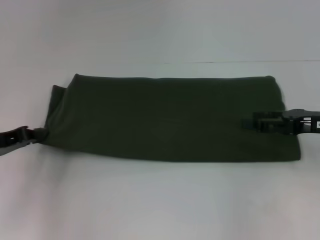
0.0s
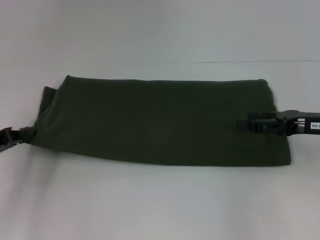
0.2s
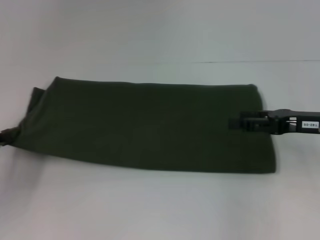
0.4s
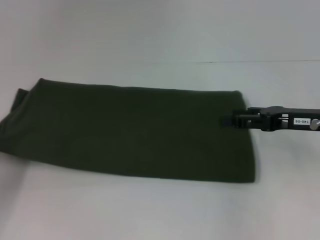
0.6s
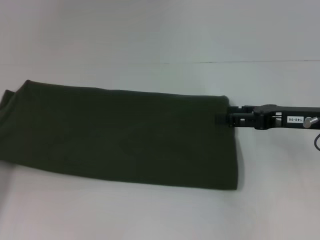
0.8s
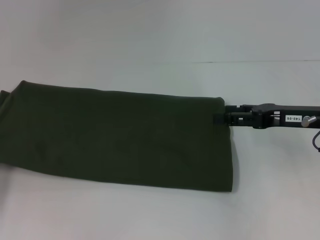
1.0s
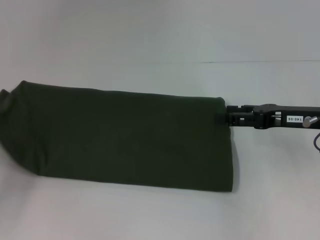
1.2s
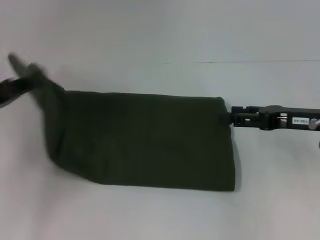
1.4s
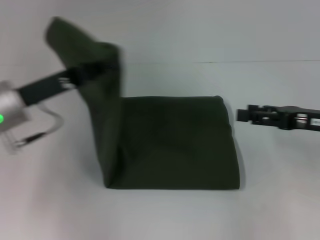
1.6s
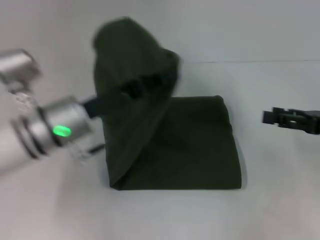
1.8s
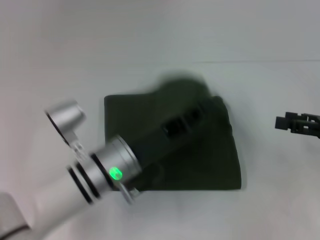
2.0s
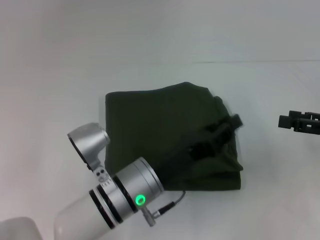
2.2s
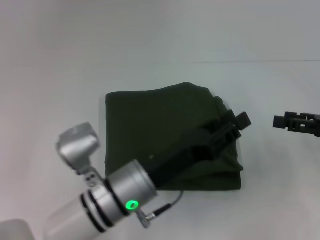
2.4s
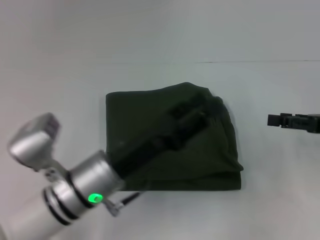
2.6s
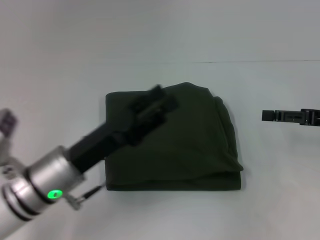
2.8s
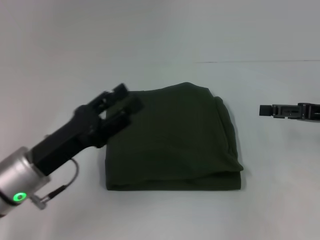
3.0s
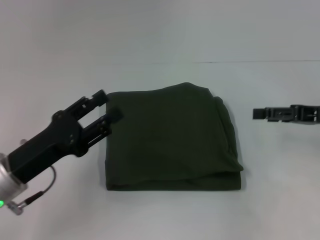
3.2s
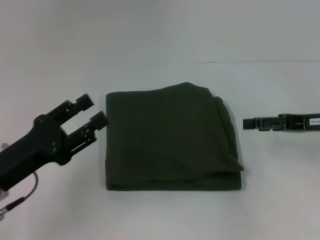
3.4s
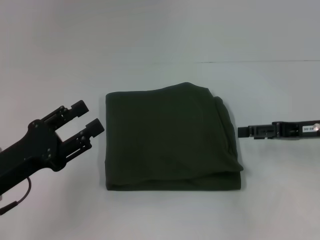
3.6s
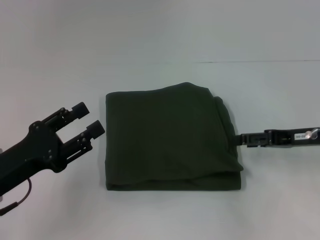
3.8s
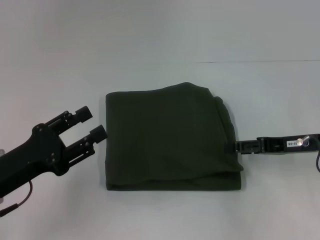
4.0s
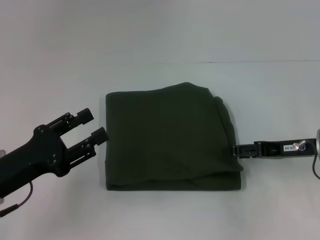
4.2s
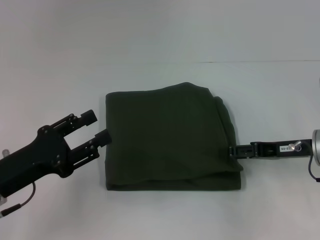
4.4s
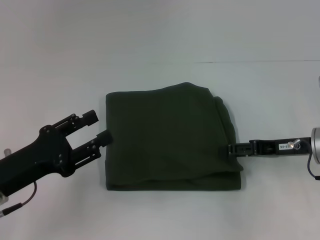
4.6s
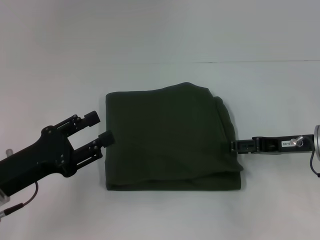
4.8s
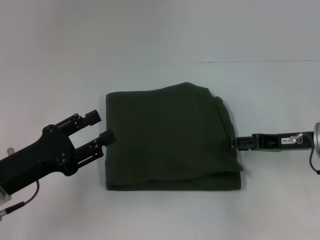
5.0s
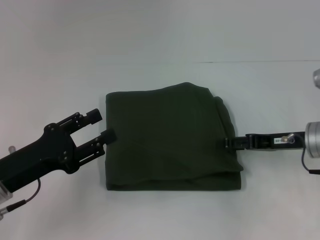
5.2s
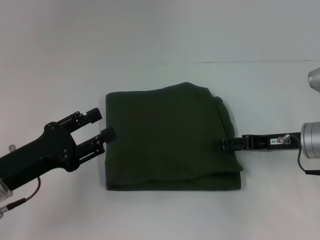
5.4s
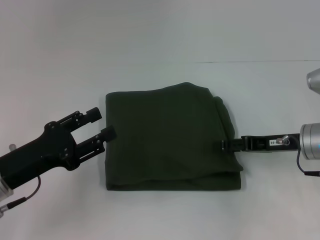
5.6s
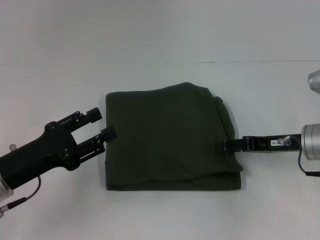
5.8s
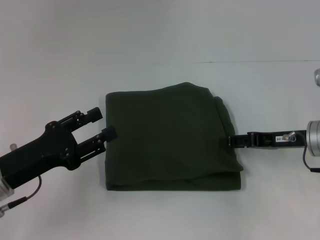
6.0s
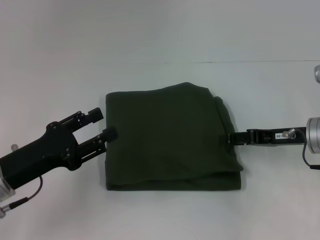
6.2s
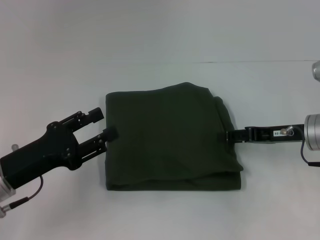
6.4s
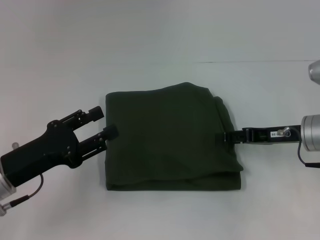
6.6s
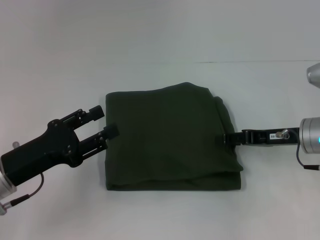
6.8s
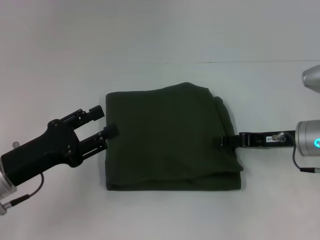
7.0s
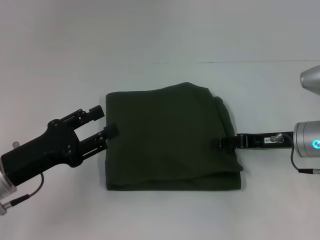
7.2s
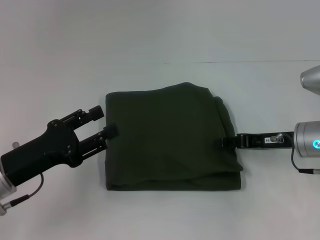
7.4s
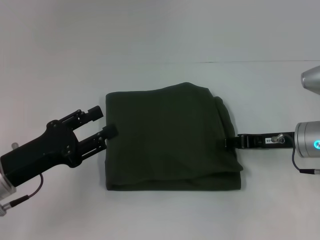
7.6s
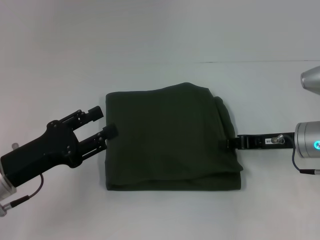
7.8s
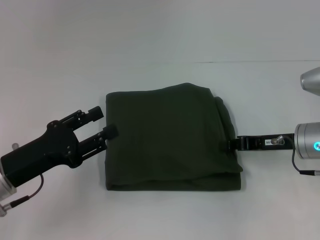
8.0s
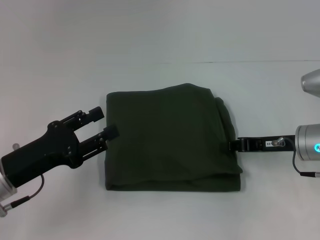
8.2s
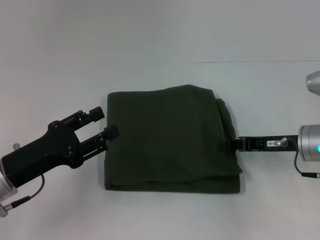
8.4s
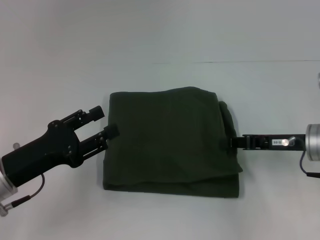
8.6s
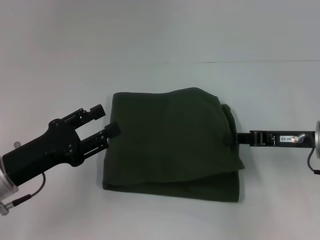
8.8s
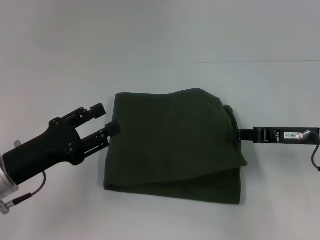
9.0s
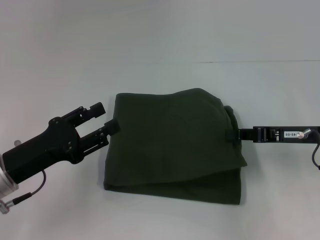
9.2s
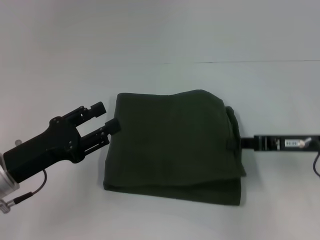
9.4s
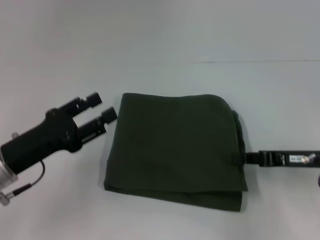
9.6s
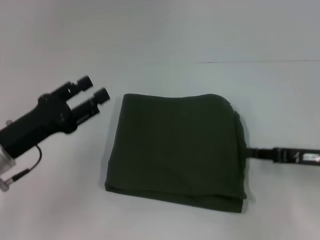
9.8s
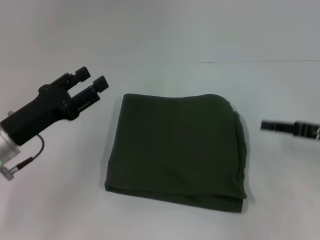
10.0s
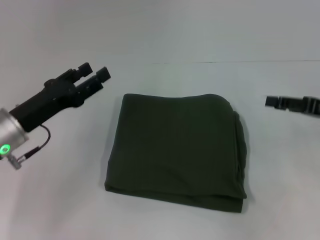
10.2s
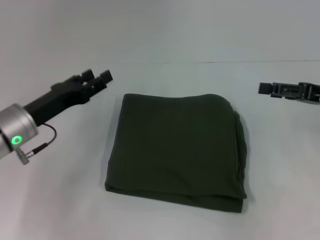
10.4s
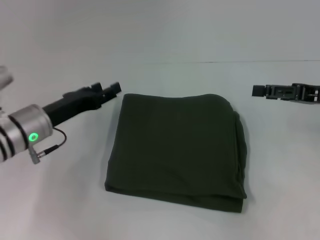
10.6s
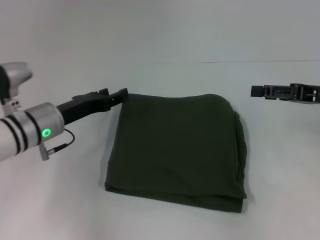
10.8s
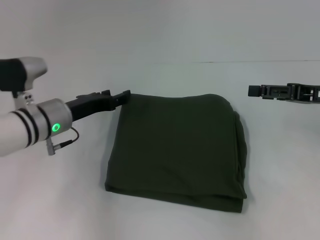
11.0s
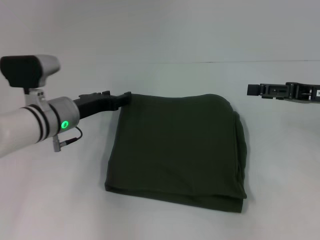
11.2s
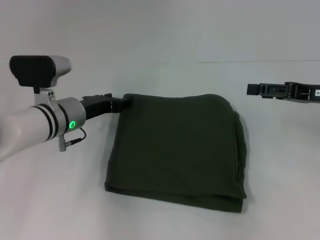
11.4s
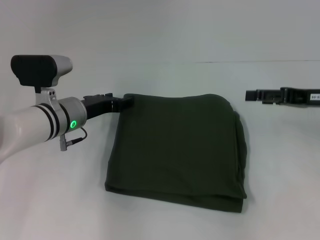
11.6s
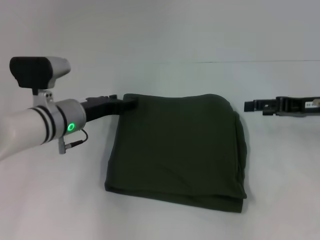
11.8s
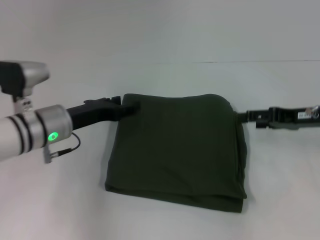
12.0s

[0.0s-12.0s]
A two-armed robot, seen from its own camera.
Step, 0.0s to 2.2s: Fold the clothes with your left hand.
0.0s to 1.6s: The left gripper moves to the right and upward, roughly 10 cm.
1.6s to 3.0s: The left gripper goes roughly 10 cm downward and backward, travels to the right and back again, about 15 cm each way, and opens.
3.0s to 4.4s: Both grippers travel together to the left, approximately 5 cm.
4.4s to 7.6s: The grippers stay close to where they were, moving slightly.
7.6s to 9.0s: The right gripper closes up.
9.0s to 10.4s: The right gripper heads to the right, covering roughly 5 cm, and opens. Meanwhile the left gripper shifts roughly 10 cm forward.

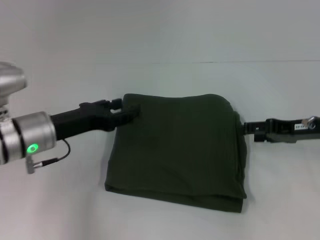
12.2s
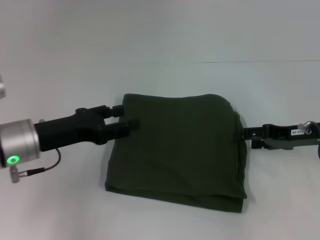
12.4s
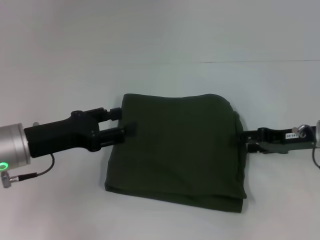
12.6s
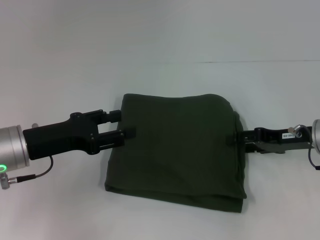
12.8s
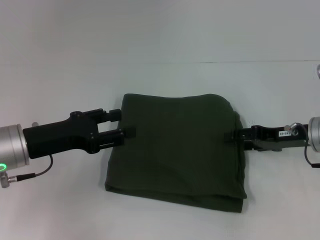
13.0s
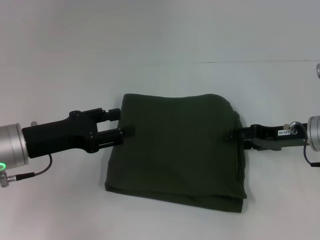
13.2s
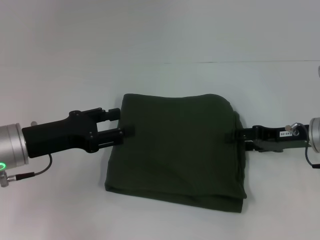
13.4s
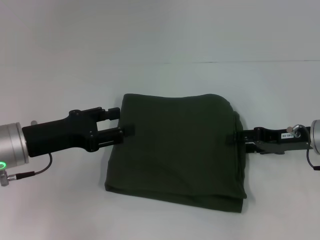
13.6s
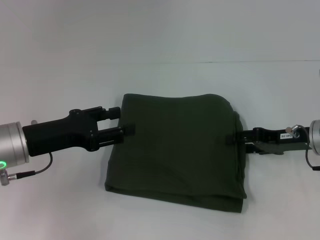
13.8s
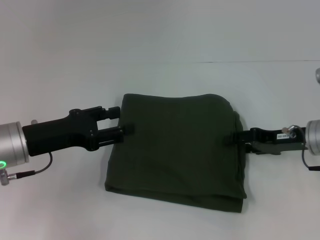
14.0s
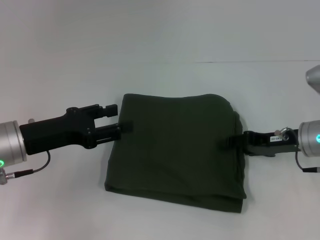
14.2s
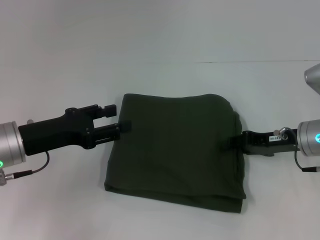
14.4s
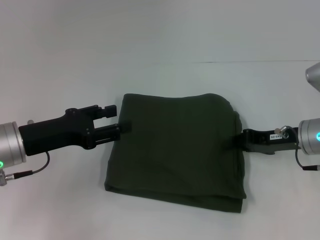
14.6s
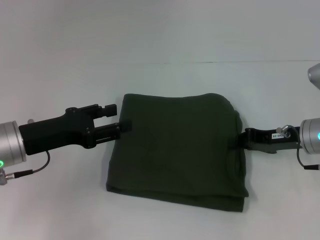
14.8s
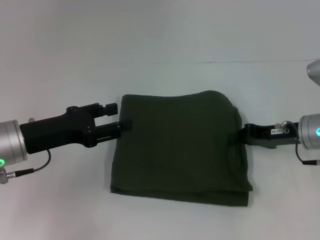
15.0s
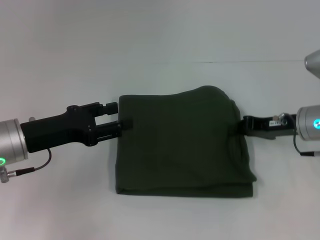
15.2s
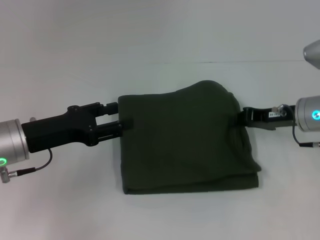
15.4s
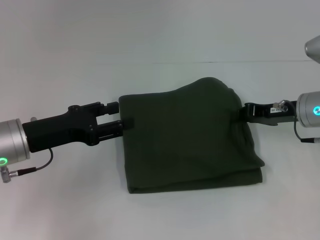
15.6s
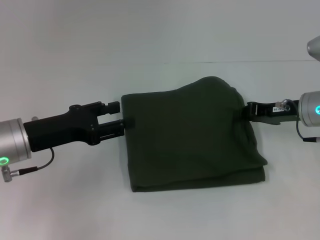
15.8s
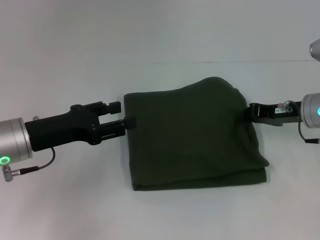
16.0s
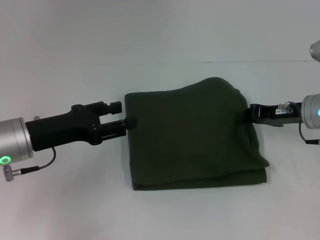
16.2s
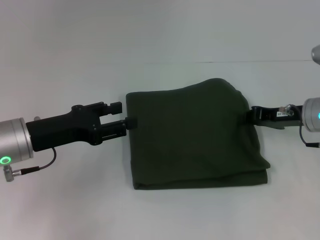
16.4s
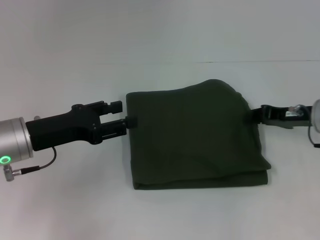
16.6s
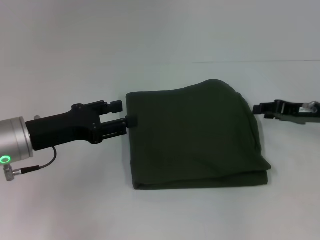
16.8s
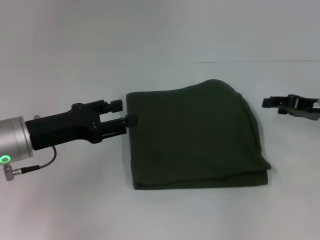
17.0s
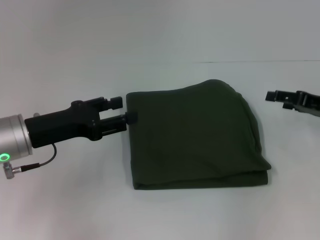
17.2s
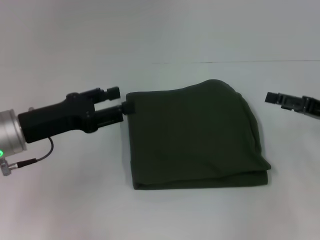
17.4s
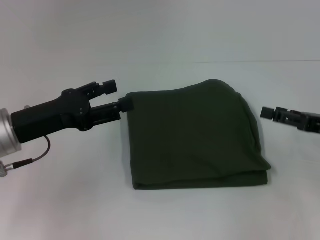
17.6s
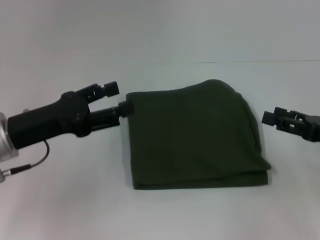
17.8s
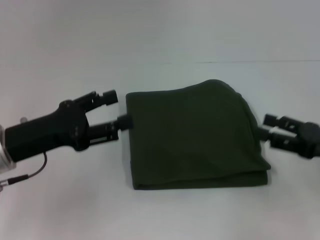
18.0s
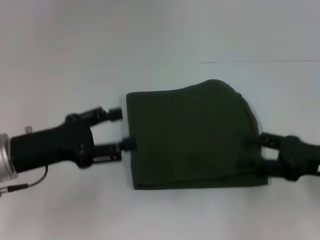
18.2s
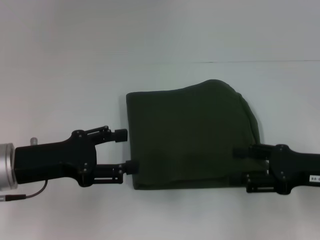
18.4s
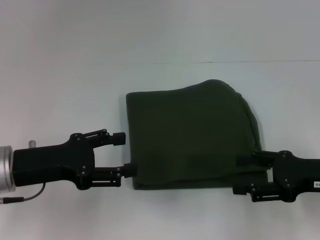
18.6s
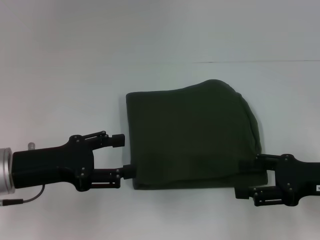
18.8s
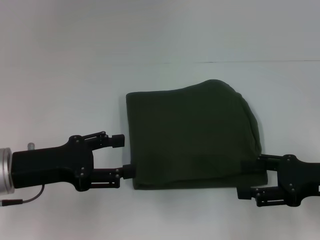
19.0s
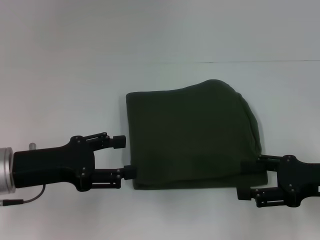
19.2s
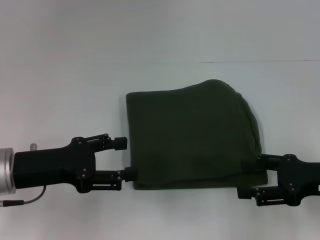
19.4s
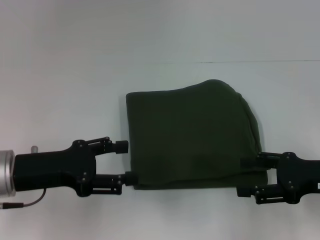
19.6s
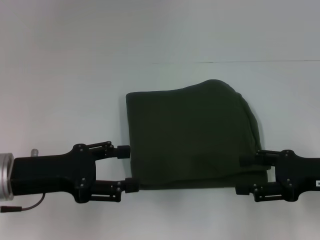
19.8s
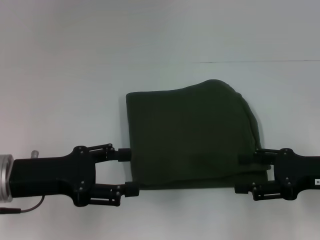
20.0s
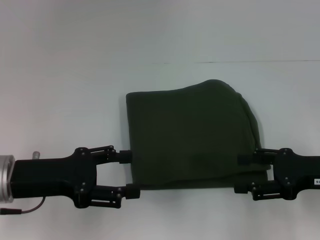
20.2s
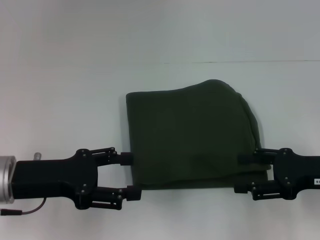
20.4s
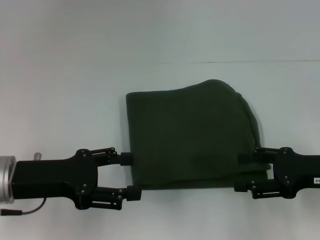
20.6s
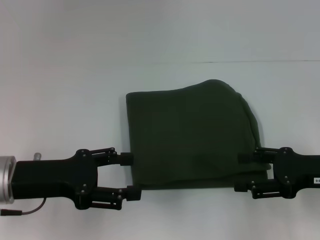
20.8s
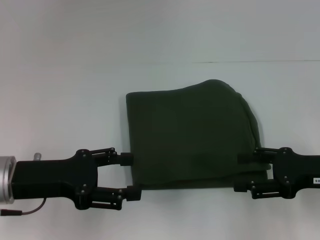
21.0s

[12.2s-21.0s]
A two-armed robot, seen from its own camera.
12.2s to 13.6s: The grippers stay close to where they were, moving slightly.
13.6s to 15.2s: The right gripper closes its fingers.
15.2s to 16.6s: The grippers stay close to where they were, moving slightly.
16.6s to 18.0s: The right gripper is displaced backward by roughly 10 cm, and opens its fingers.
19.6s to 21.0s: Both grippers stay about where they are.

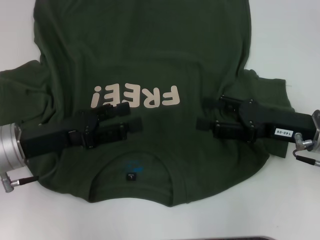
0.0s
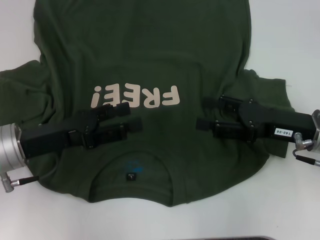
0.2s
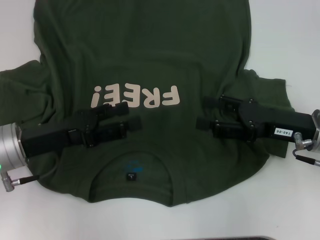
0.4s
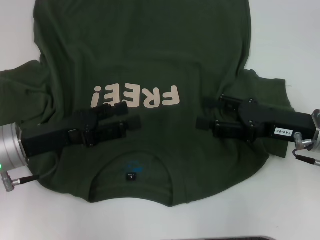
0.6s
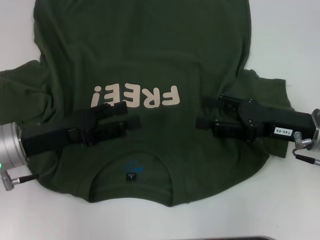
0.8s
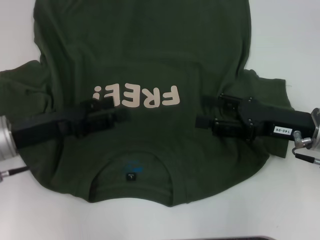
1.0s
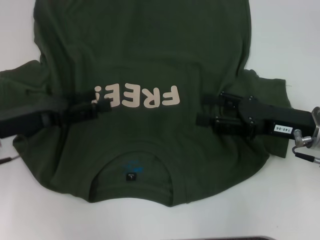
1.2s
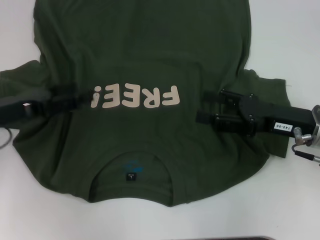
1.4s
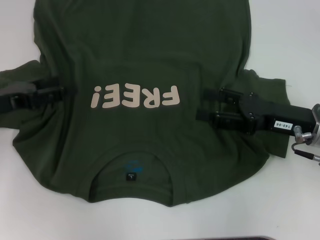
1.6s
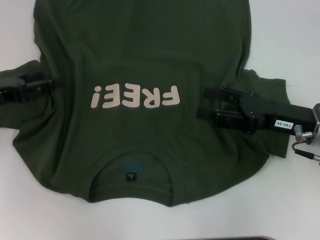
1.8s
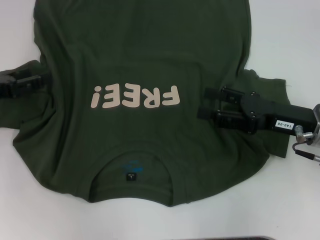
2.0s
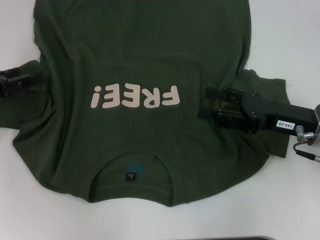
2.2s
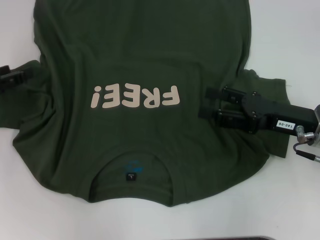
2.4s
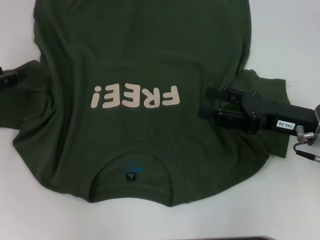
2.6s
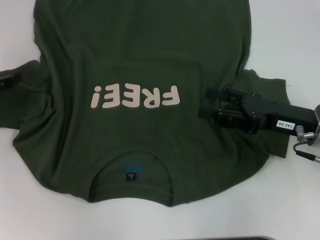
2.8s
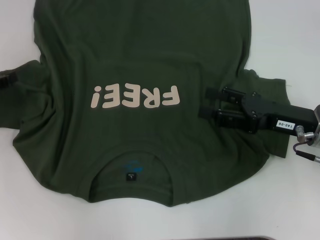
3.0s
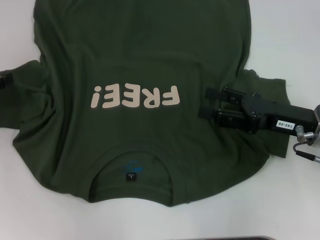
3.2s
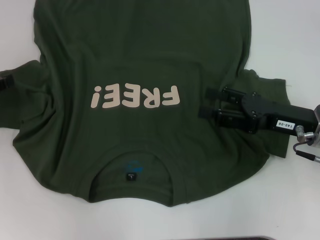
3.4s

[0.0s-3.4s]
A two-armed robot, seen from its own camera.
0.0s to 1.6s: The left gripper moves to the left, some 10 cm.
1.6s to 3.4s: The left gripper travels to the left by some 5 cm.
